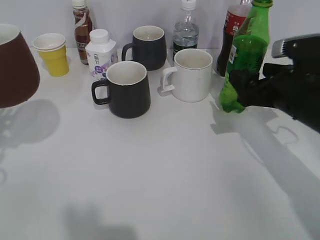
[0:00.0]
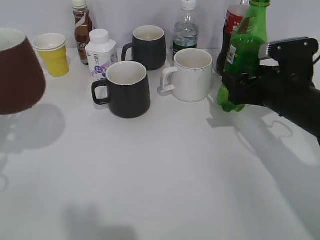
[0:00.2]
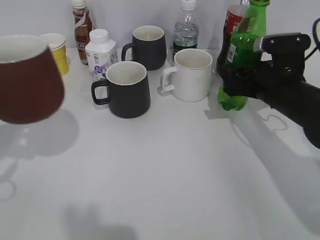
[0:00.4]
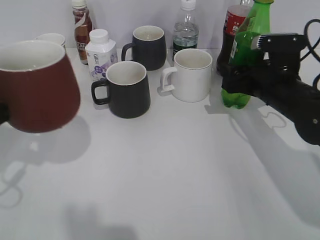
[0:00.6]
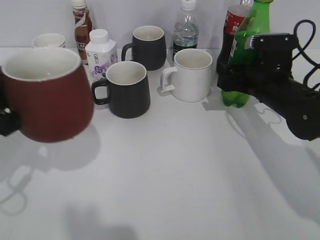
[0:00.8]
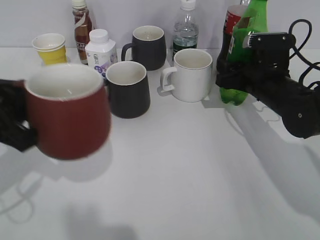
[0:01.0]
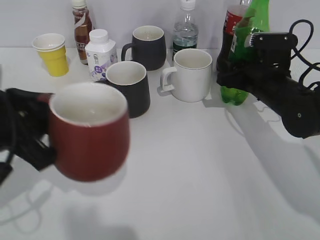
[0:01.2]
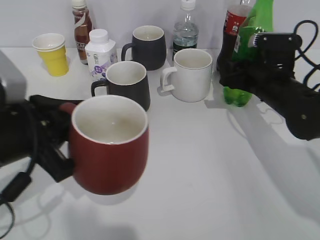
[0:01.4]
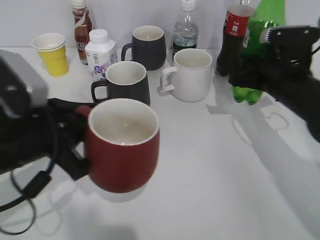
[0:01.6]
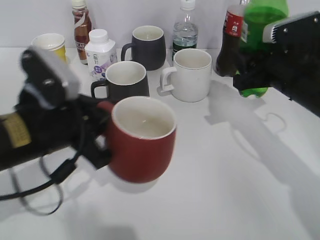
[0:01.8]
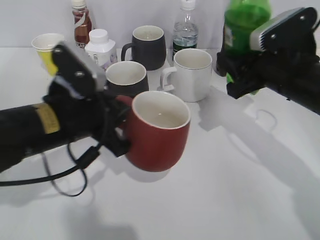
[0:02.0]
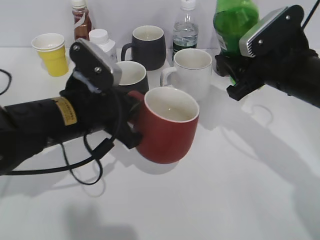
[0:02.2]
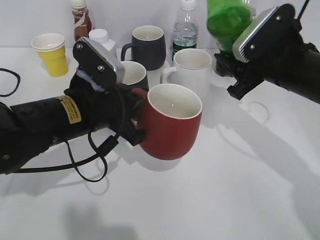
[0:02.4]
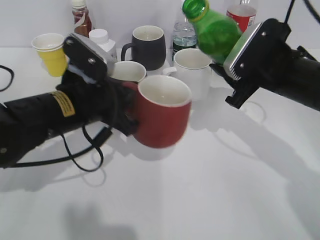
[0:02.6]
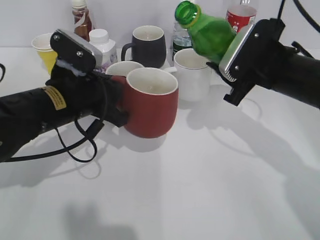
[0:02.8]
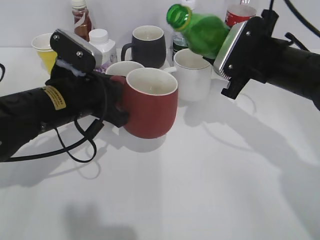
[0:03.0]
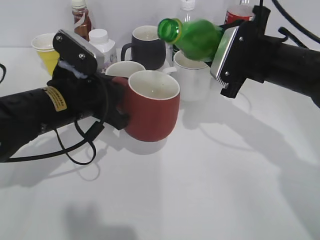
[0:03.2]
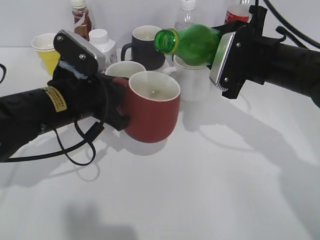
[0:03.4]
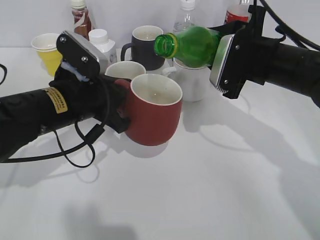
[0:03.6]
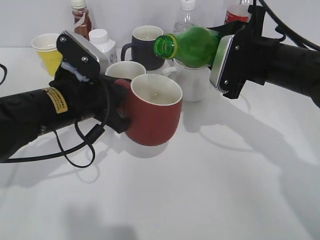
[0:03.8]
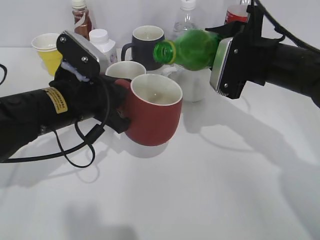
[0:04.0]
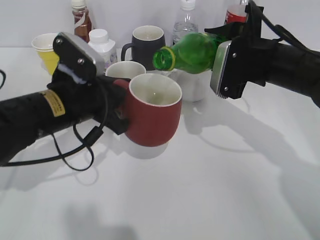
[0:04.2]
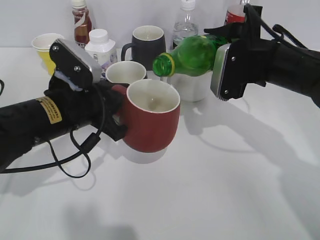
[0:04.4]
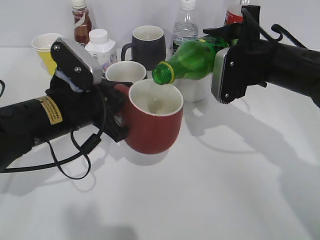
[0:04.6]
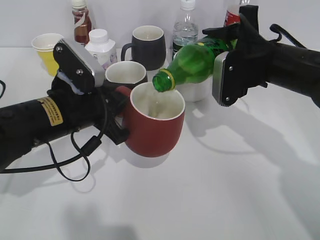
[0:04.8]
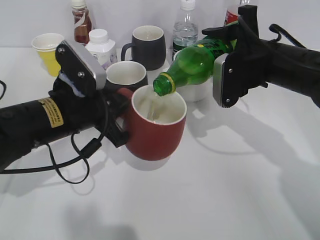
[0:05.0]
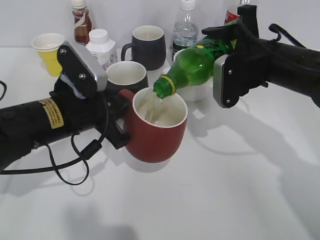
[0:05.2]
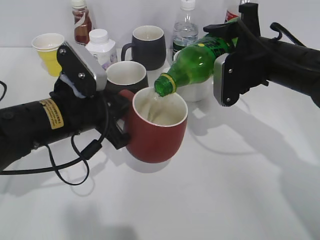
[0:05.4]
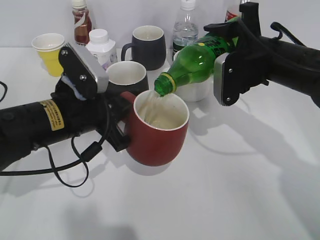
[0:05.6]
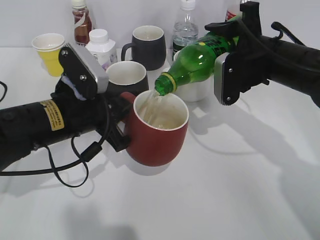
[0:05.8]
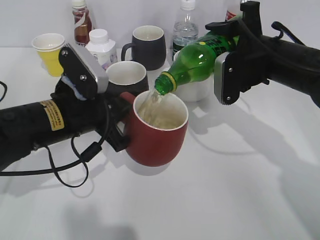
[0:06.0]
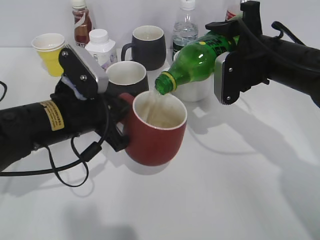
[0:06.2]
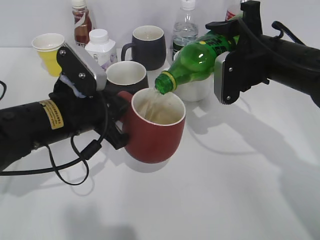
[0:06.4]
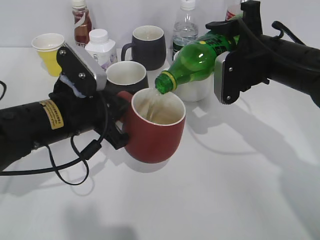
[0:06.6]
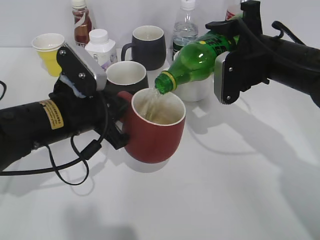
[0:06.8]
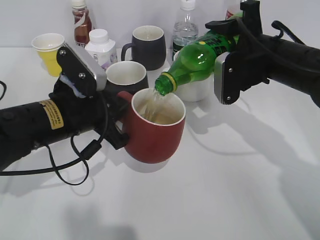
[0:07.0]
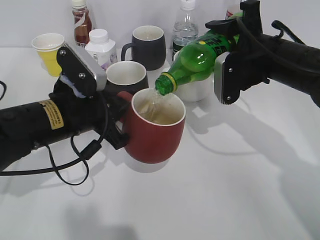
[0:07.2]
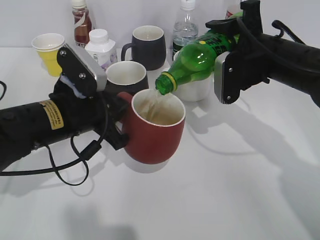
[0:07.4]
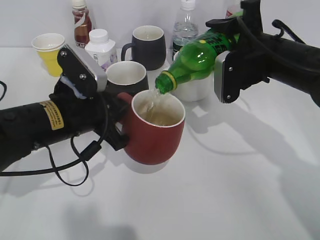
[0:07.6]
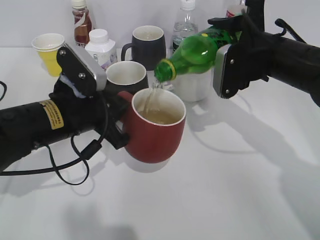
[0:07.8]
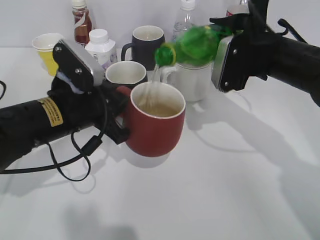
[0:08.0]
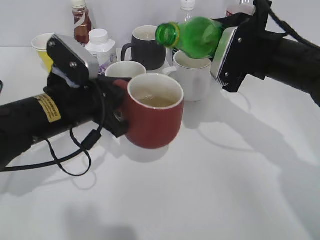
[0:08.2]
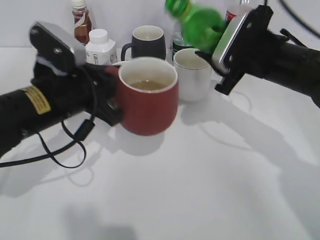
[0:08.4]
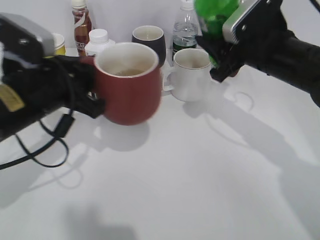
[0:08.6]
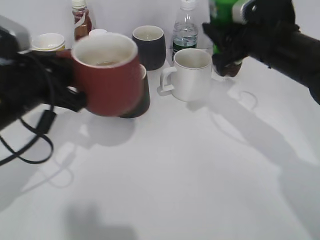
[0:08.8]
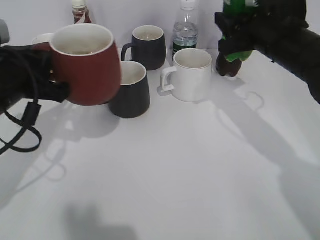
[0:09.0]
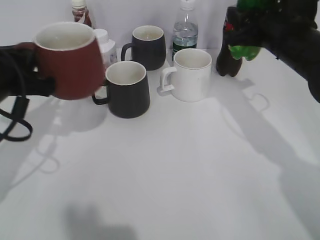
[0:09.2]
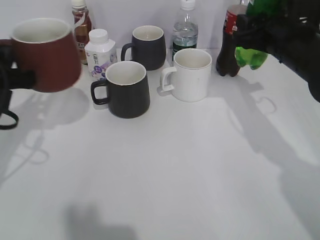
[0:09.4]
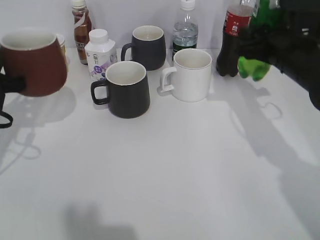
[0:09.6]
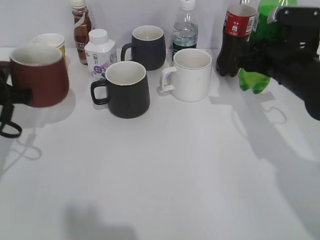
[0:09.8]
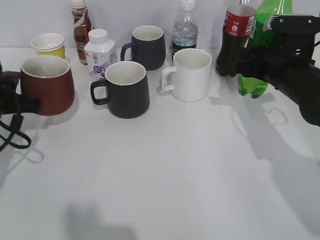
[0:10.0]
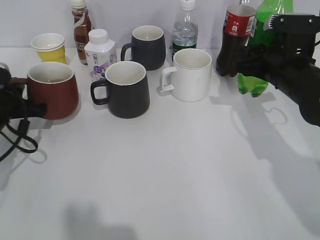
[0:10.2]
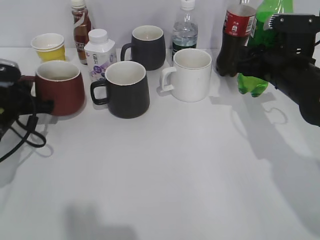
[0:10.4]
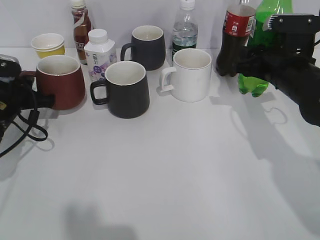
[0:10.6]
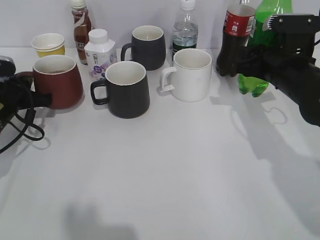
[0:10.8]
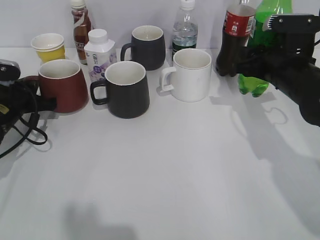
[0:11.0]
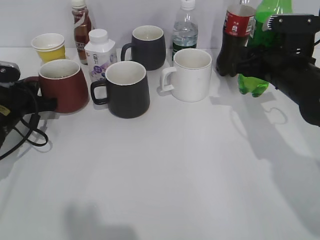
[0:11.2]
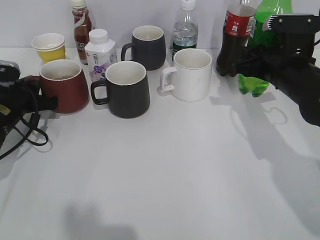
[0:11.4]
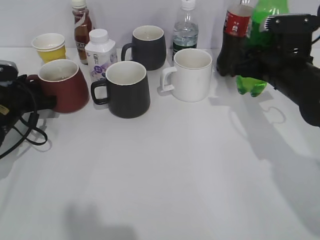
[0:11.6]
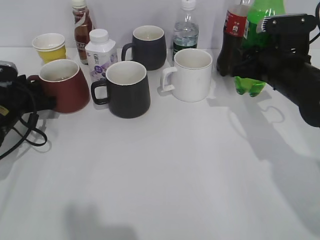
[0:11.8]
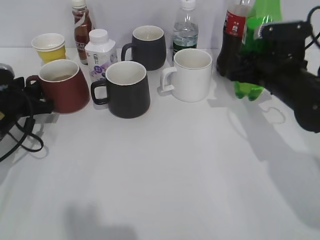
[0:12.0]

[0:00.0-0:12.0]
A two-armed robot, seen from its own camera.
Step, 0:01.2 to 0:08.0: Pour the sprite from bottle to cup with right gripper.
Step, 0:08.2 to 0:11.0: Place the red cup on the table with left gripper.
0:00.0 to 0:01.6: The left gripper shifts roughly 15 cm to the right, while the right gripper closes its fingers.
0:01.6 to 0:03.0: The right gripper shifts by approximately 5 cm; the left gripper shifts about 10 cm forward.
0:04.4 to 0:06.0: There are only small adjustments of the grippers.
0:06.0 to 0:07.6: Both grippers stay put.
0:07.6 to 0:09.0: The left gripper moves to the left and upward, roughly 10 cm.
0:09.0 to 0:10.4: The right gripper is displaced downward by some 5 cm, while the left gripper shifts roughly 15 cm downward, forward and to the left.
0:10.4 to 0:12.0: The left gripper opens up.

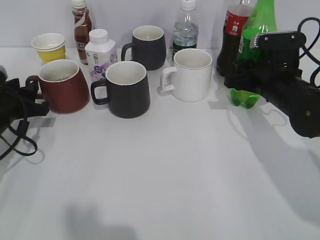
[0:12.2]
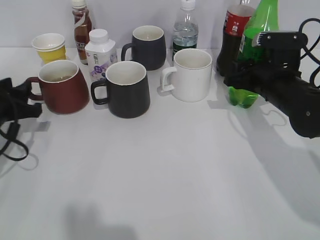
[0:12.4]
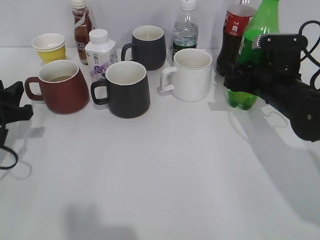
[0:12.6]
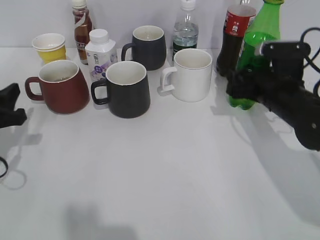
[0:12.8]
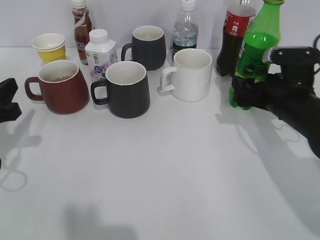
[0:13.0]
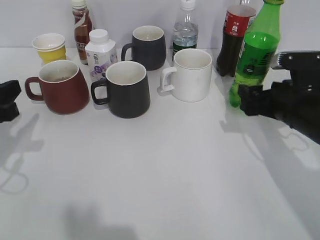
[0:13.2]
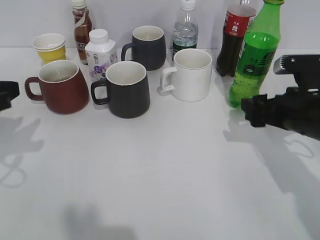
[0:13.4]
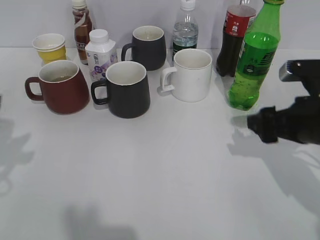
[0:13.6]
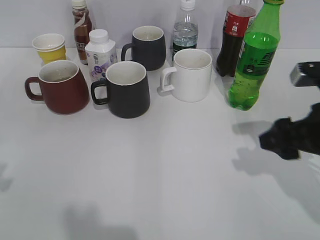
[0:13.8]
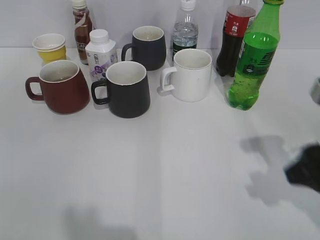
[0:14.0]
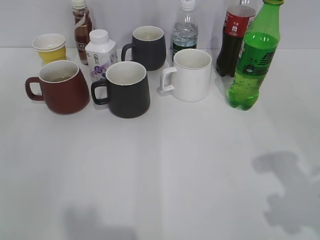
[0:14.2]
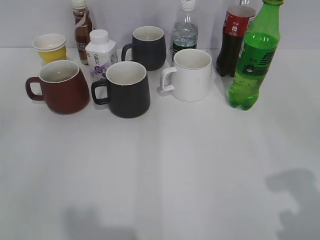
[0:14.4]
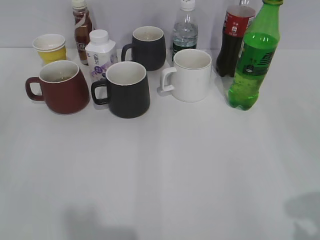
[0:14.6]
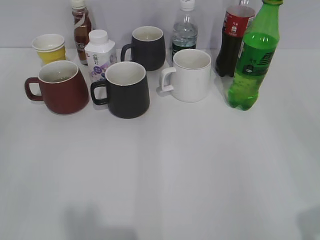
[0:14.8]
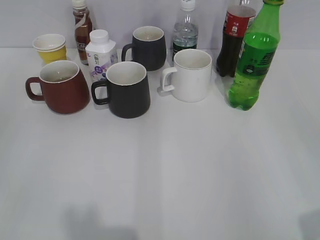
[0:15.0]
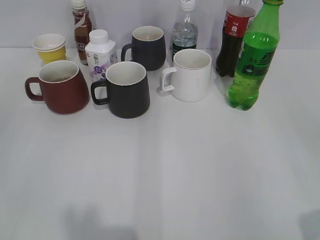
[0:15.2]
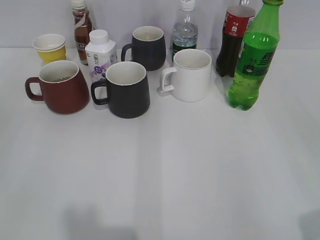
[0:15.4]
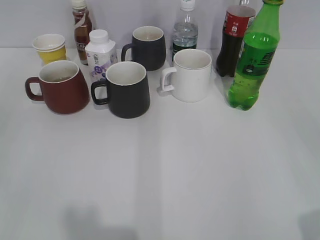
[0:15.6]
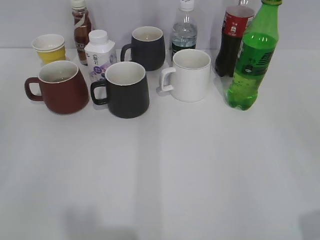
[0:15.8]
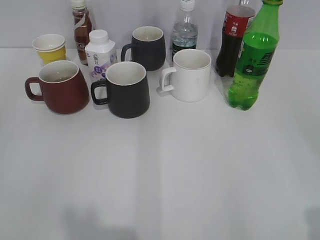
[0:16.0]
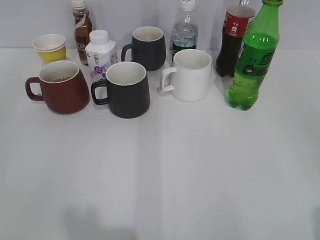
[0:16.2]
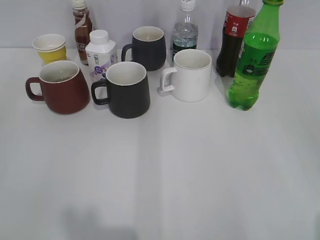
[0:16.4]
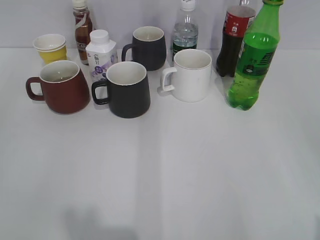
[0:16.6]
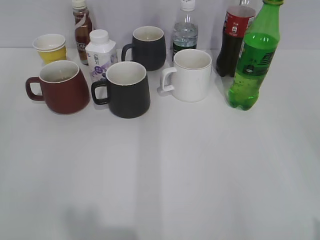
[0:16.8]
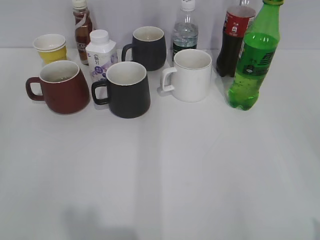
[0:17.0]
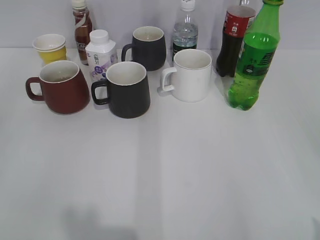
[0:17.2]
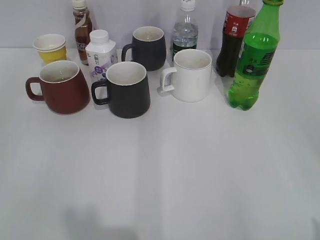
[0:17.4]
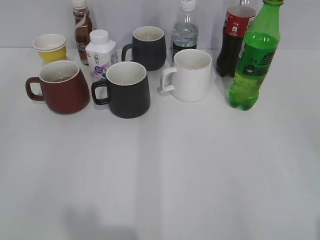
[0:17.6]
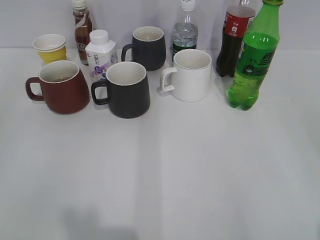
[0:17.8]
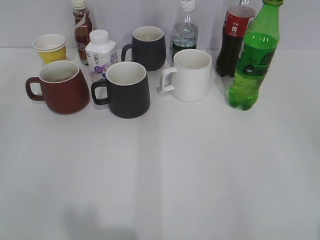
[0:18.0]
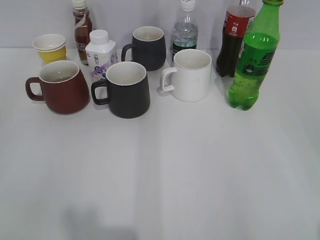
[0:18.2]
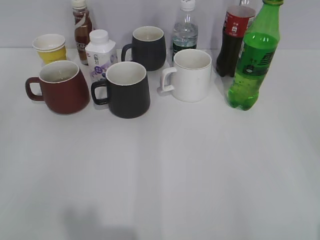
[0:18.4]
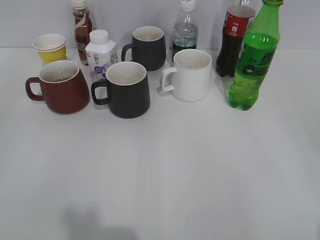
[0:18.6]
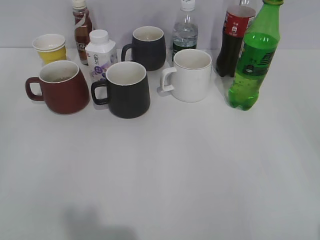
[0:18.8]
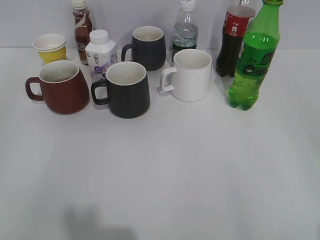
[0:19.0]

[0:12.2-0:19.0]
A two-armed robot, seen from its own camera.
0:12.2 to 0:13.6: The right gripper goes approximately 10 cm backward, and opens. The left gripper shifts some 20 cm upward and backward.
0:13.6 to 0:15.0: The right gripper moves backward and upward, some 25 cm.
0:17.6 to 0:19.0: Neither gripper changes place.

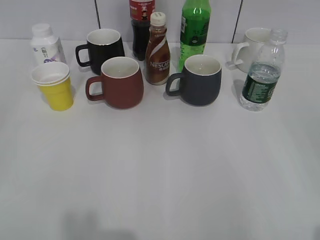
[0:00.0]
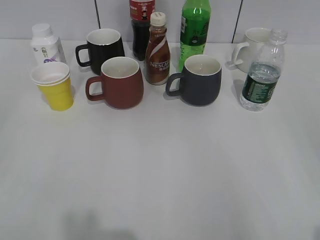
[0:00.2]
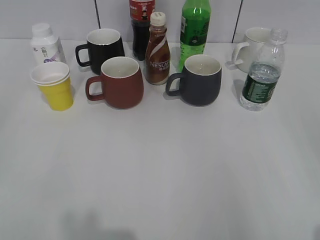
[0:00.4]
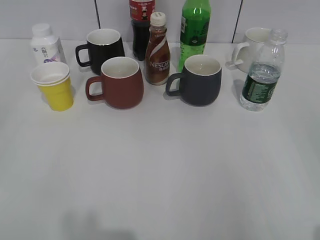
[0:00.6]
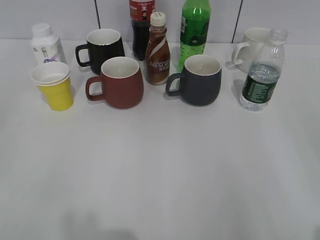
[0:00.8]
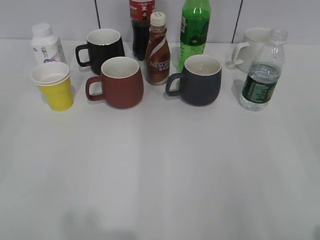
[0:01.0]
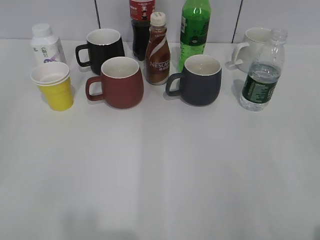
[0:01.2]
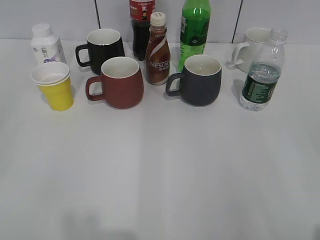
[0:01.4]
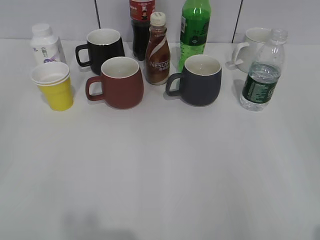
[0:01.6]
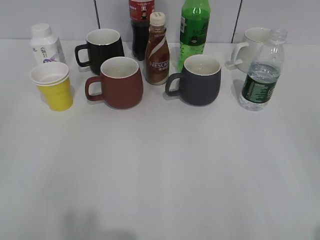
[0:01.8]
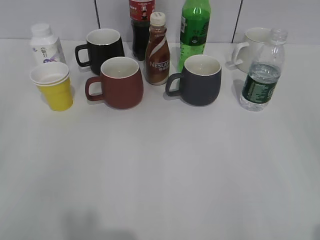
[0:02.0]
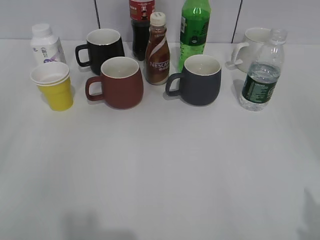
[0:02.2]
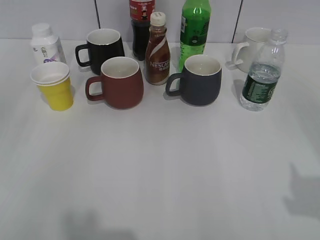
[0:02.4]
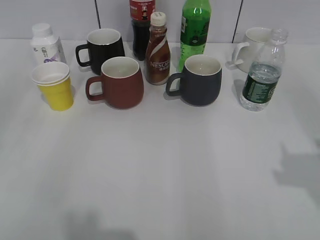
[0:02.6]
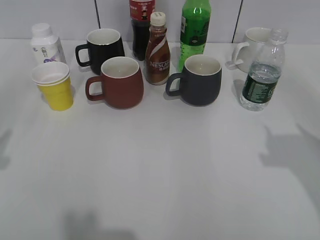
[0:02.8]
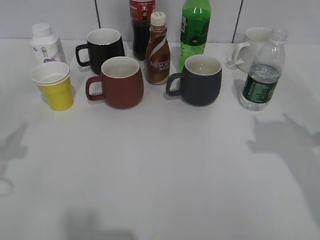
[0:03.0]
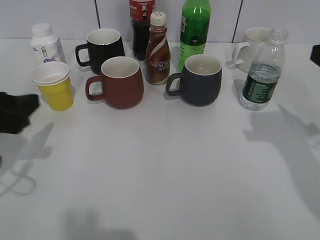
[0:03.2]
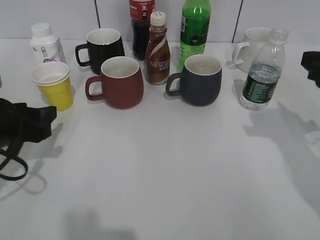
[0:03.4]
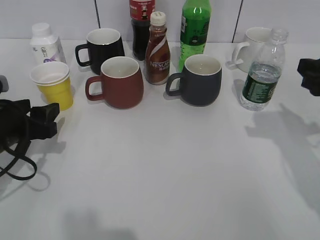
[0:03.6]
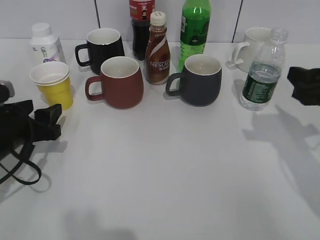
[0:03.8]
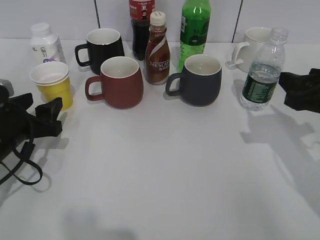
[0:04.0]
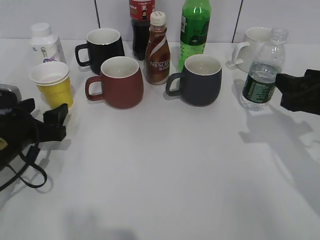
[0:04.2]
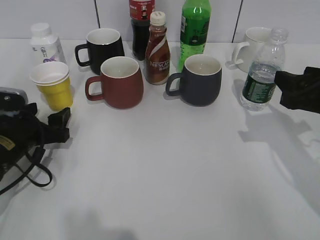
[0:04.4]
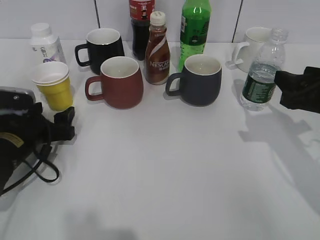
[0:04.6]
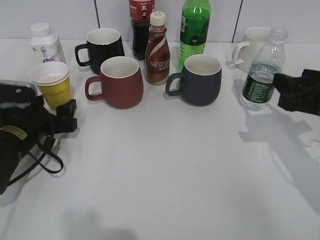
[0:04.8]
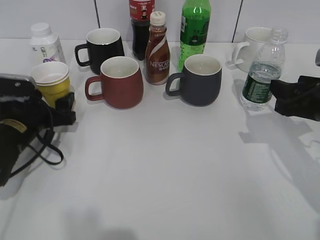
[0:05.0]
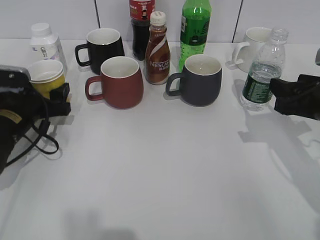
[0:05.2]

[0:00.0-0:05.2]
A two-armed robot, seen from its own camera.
0:01.8 to 0:03.4: The right gripper goes some 25 cm forward, and closes up; the left gripper shifts approximately 25 cm forward and downward.
0:03.4 to 0:05.2: The left gripper heads forward and downward, covering some 10 cm, and opens its fingers; the right gripper moves downward, roughly 5 cm.
